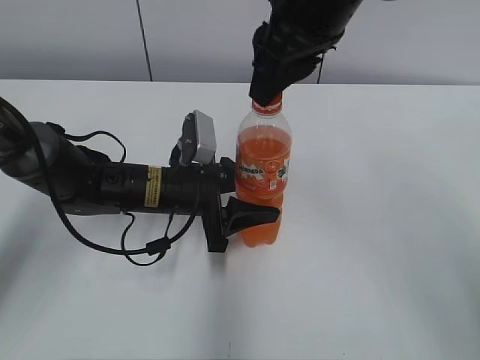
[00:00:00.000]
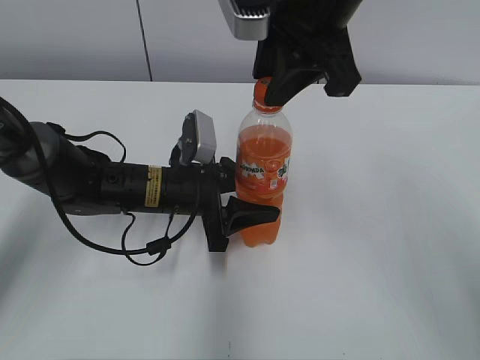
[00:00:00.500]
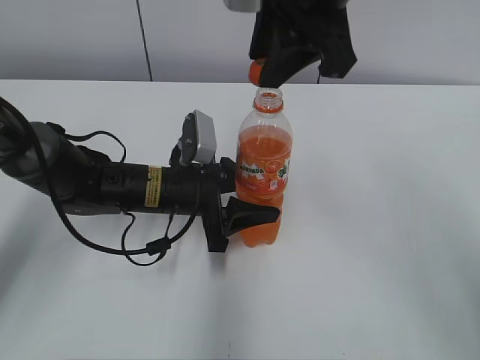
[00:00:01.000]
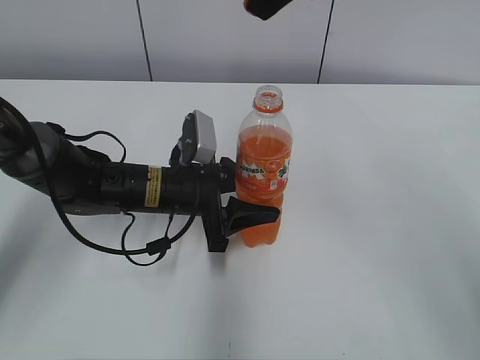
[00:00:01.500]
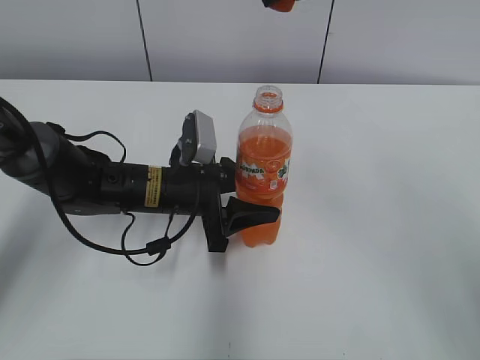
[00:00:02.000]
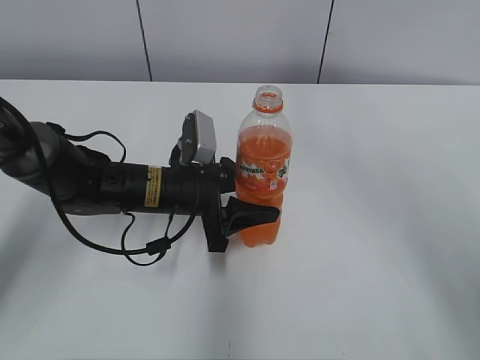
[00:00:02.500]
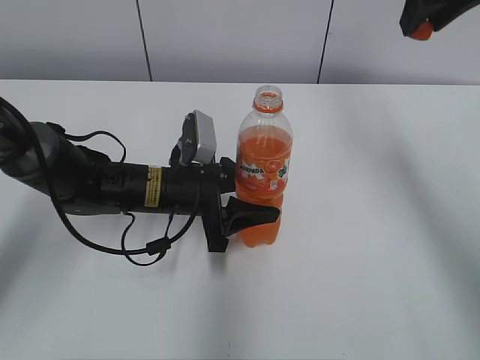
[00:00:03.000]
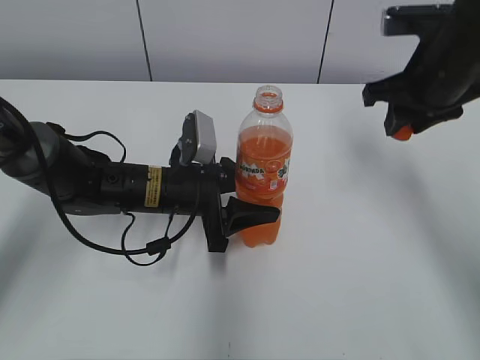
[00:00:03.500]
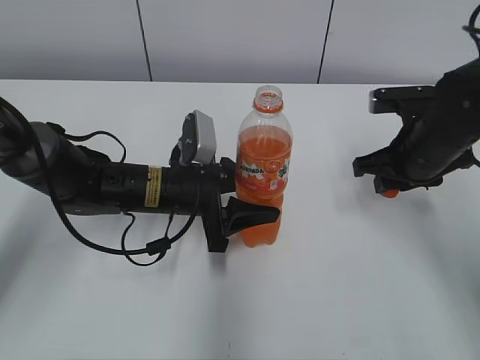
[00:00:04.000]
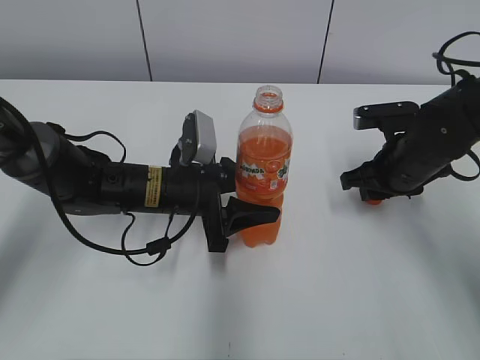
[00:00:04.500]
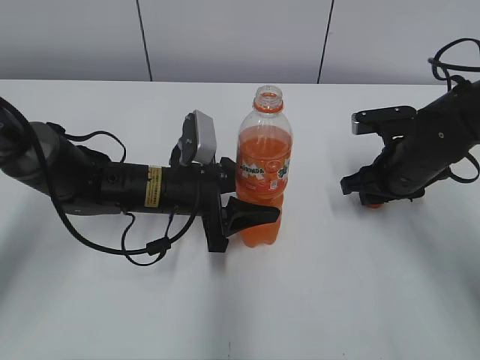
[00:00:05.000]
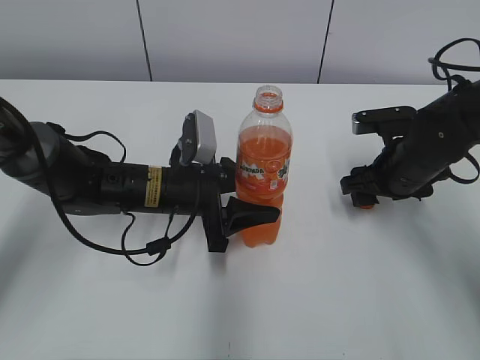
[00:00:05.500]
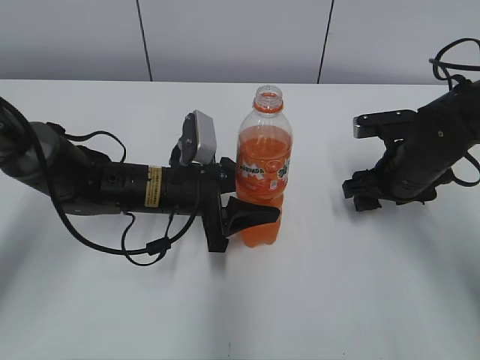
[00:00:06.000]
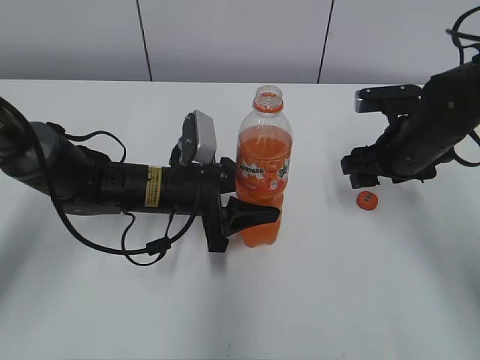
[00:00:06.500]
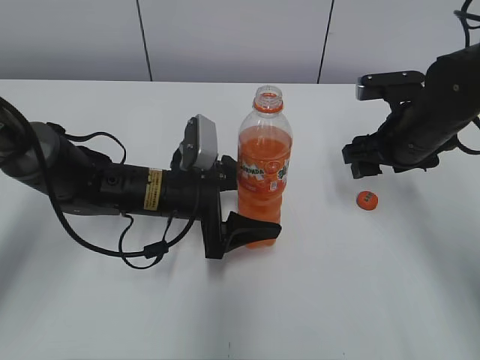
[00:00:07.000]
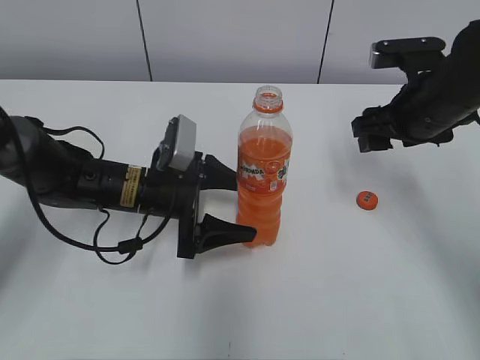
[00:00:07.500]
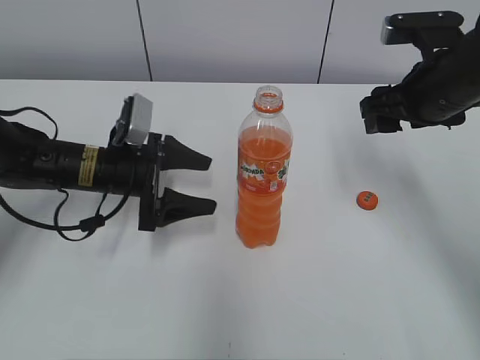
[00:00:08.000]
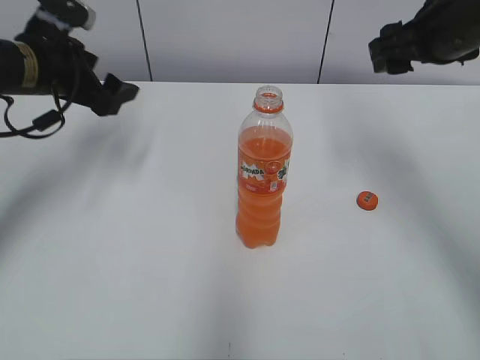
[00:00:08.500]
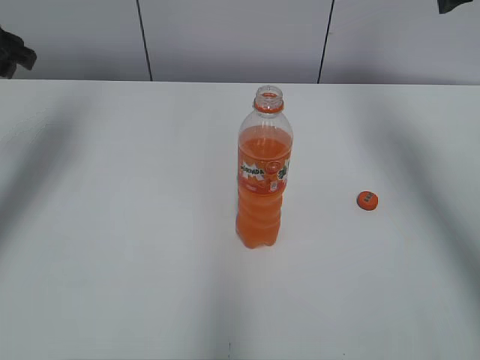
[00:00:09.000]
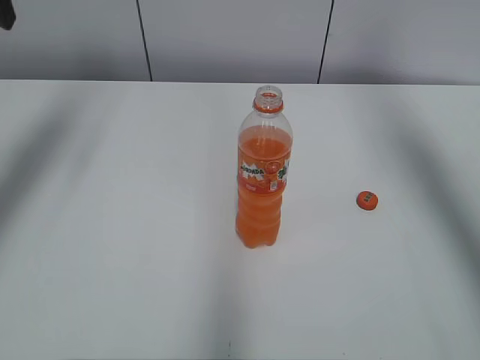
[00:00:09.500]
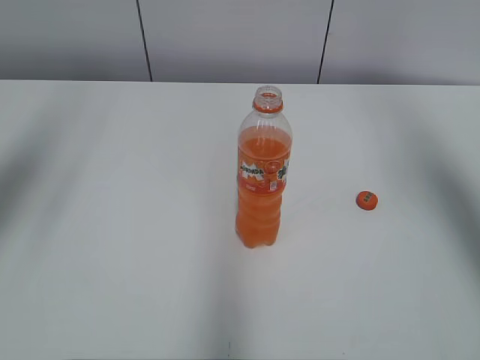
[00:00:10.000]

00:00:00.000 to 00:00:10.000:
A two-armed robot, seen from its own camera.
Step, 00:00:01.500 to 00:00:05.500: Place the bottle cap on the right.
00:00:00.000 to 00:00:02.000: The right gripper shifts roughly 5 cm upward.
00:00:02.000 to 00:00:04.000: The right gripper moves downward and to the right, roughly 30 cm.
00:00:04.000 to 00:00:06.000: The right gripper opens up.
00:00:06.000 to 00:00:08.000: The left gripper travels to the left by about 10 cm, and opens, while the right gripper heads upward, covering approximately 10 cm.
00:00:08.000 to 00:00:10.000: The left gripper is displaced upward and to the left by approximately 30 cm, and closes its fingers. The right gripper moves upward, some 20 cm.
